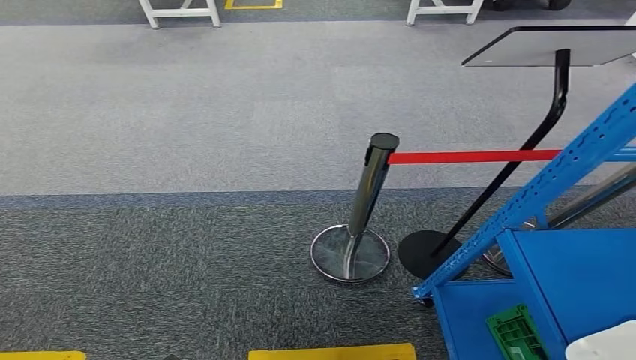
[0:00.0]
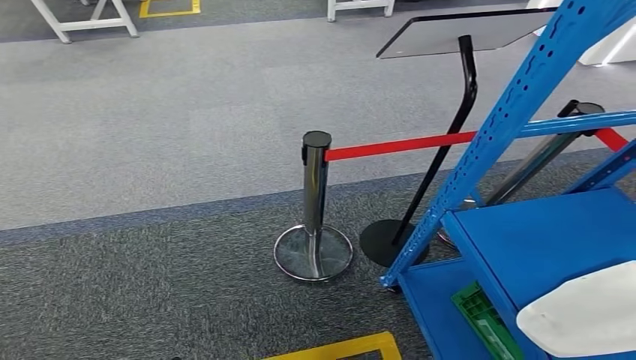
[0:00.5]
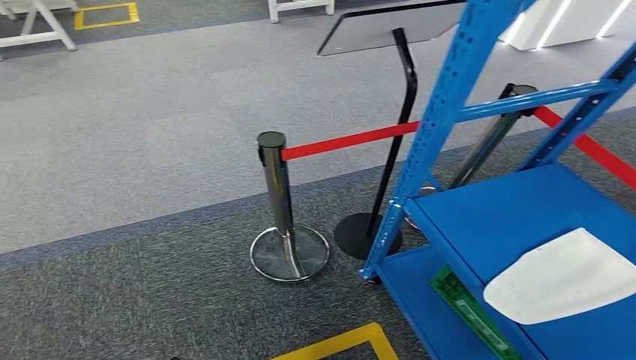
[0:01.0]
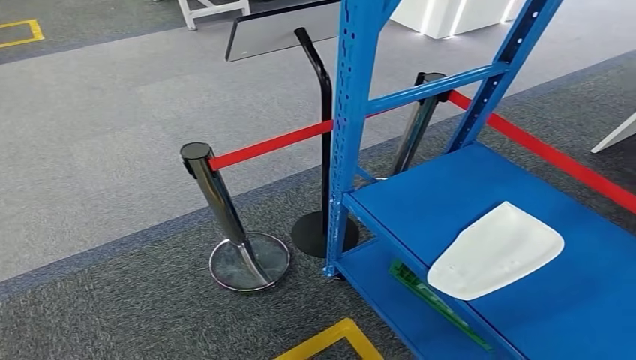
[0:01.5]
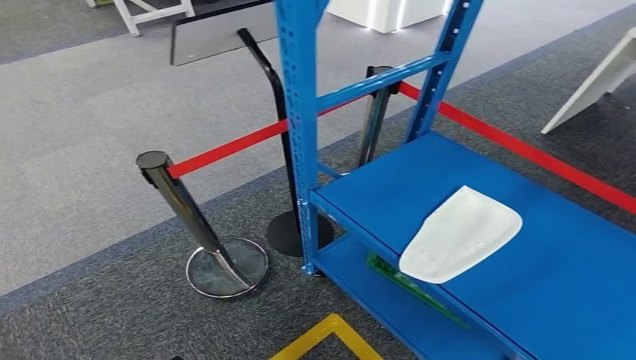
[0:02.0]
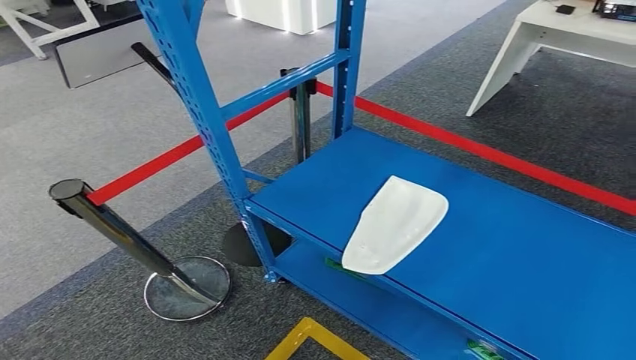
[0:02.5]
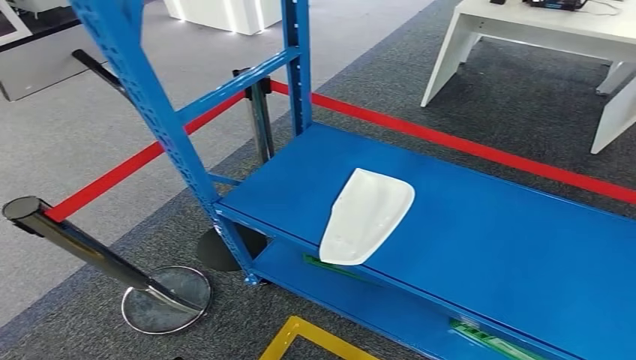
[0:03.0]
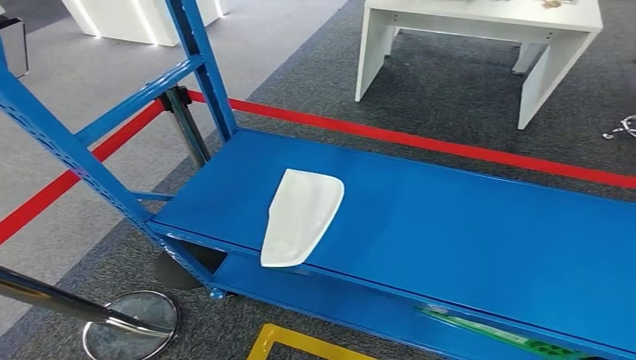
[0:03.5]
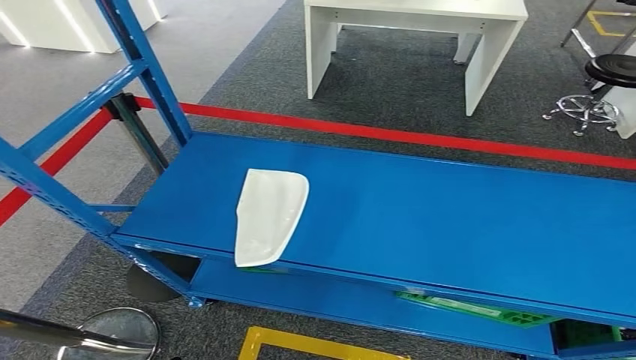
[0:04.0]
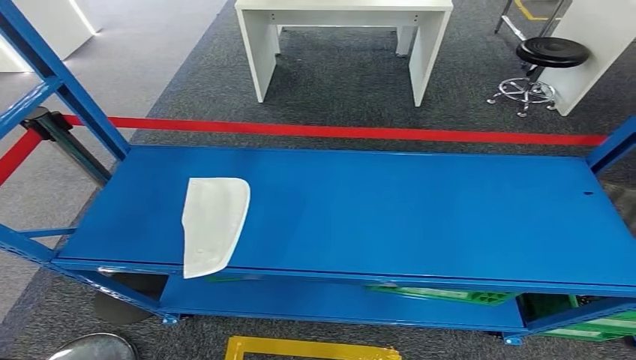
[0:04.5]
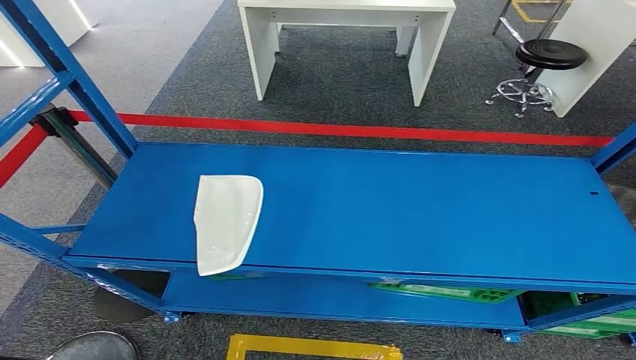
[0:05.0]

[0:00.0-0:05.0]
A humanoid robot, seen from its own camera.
Step, 0:00.0 to 0:05.0: Move to the initial position at the workbench.

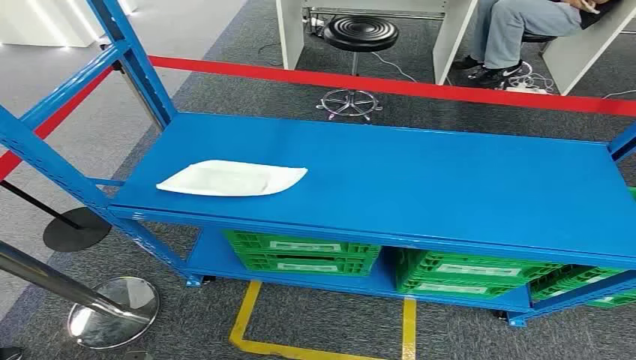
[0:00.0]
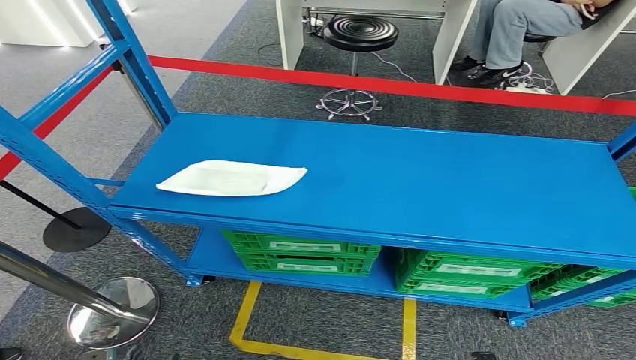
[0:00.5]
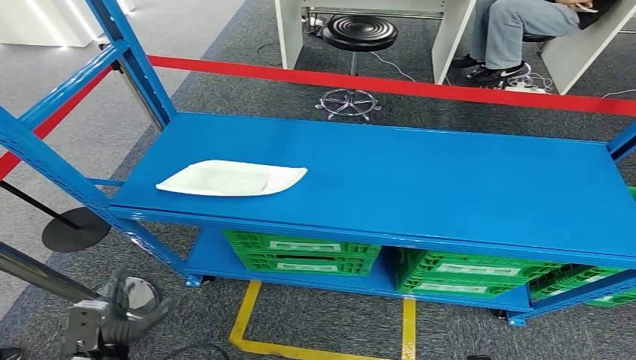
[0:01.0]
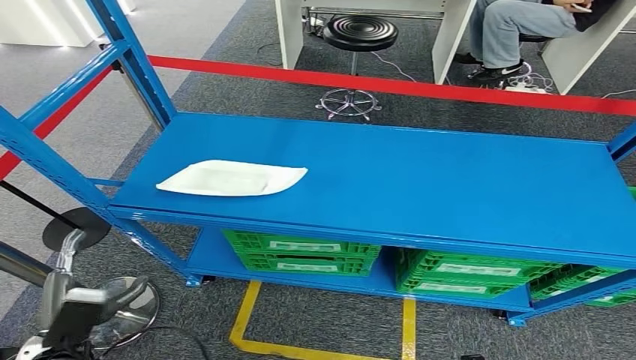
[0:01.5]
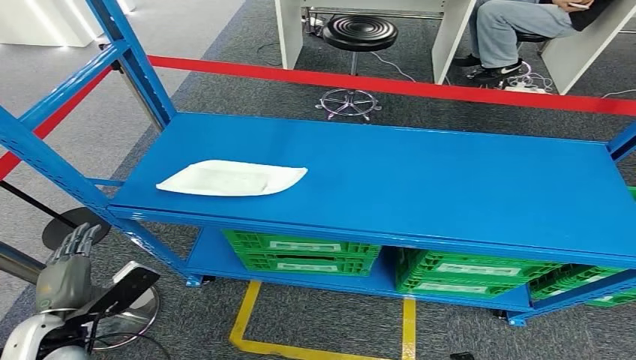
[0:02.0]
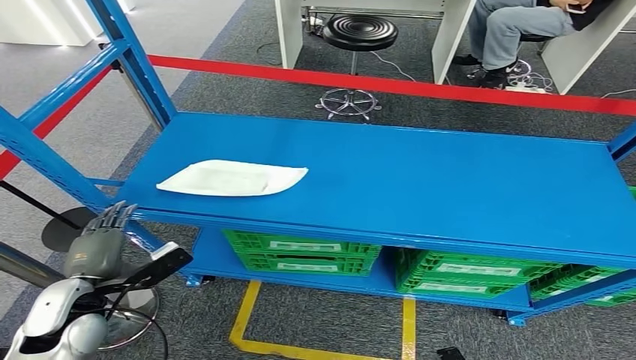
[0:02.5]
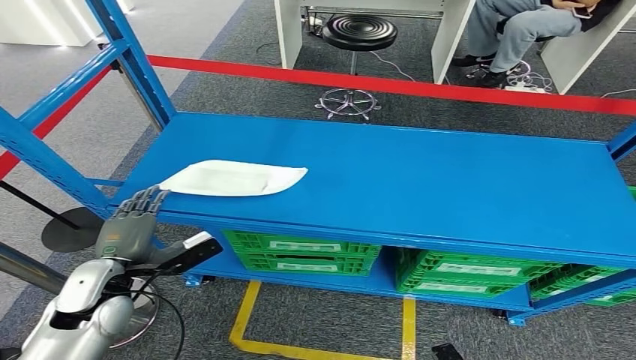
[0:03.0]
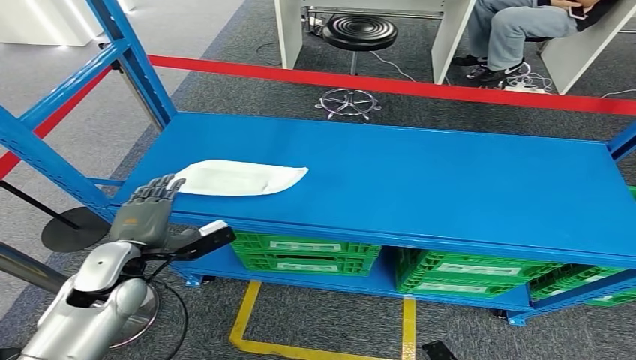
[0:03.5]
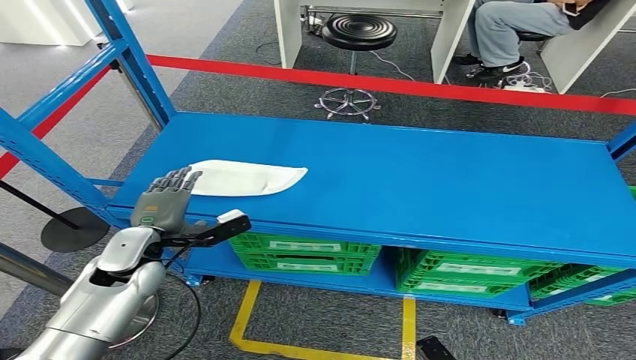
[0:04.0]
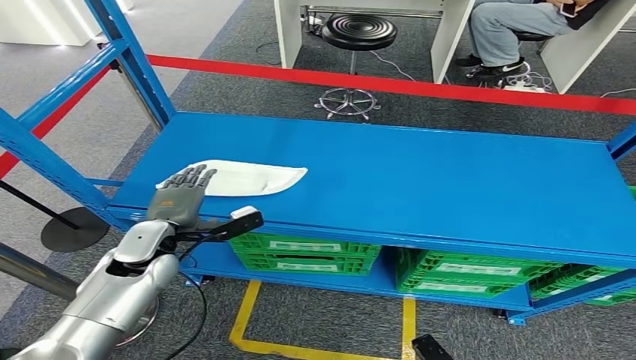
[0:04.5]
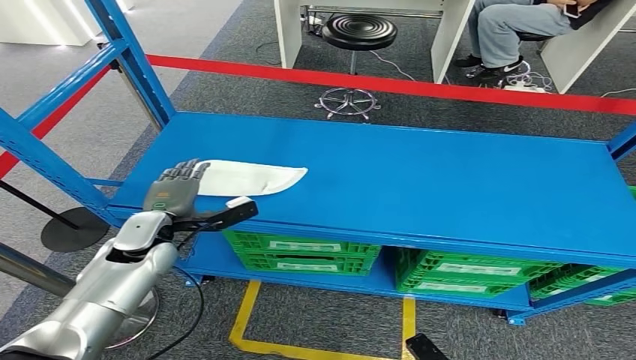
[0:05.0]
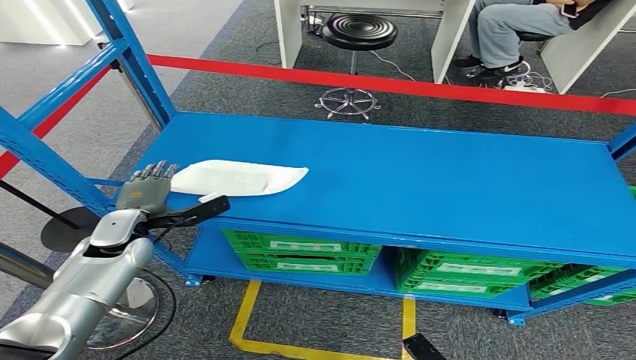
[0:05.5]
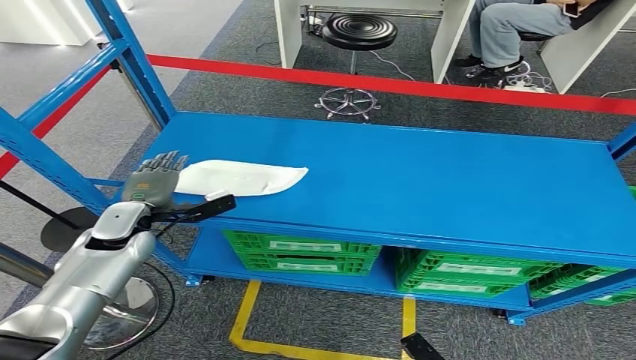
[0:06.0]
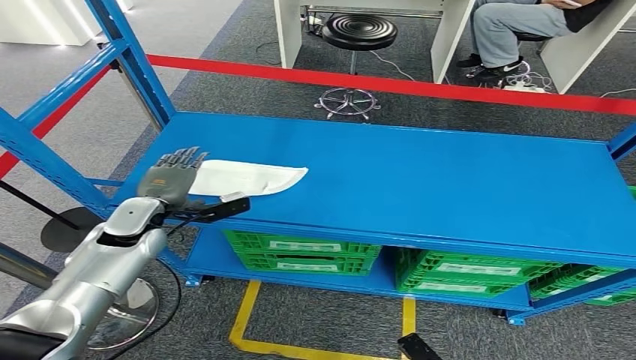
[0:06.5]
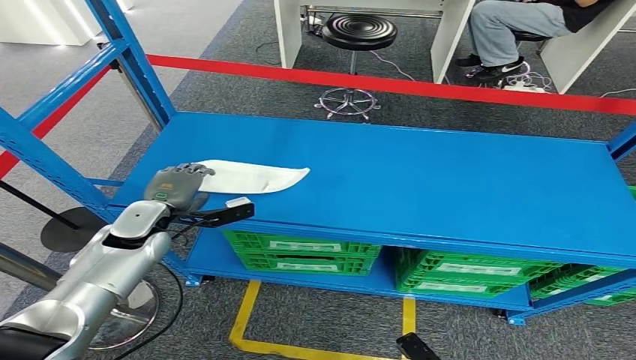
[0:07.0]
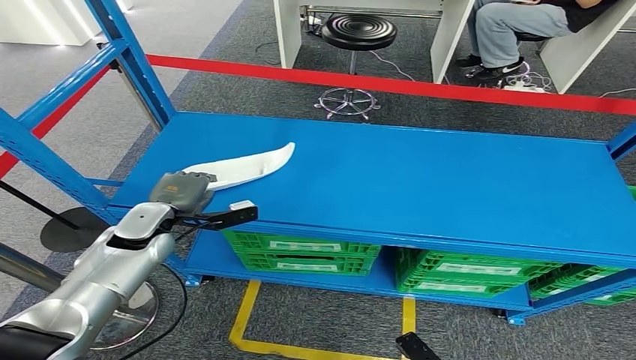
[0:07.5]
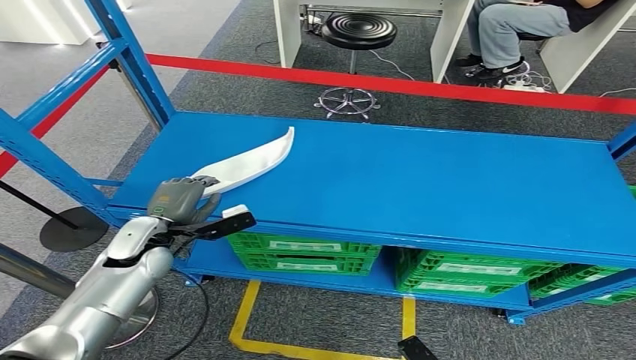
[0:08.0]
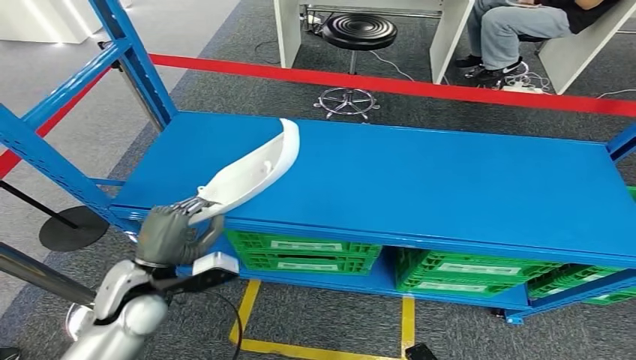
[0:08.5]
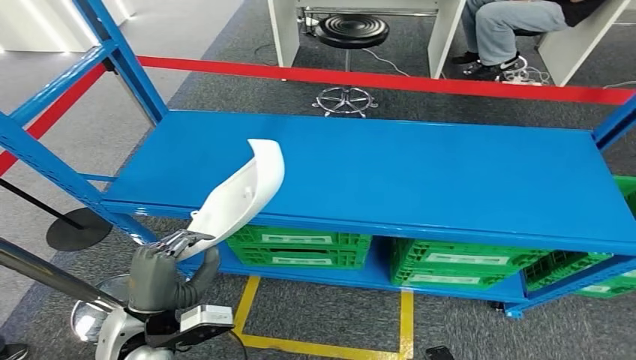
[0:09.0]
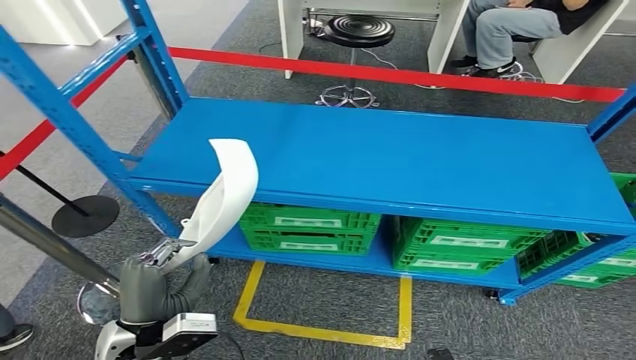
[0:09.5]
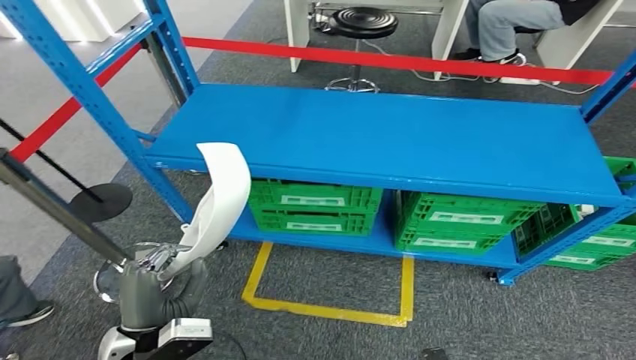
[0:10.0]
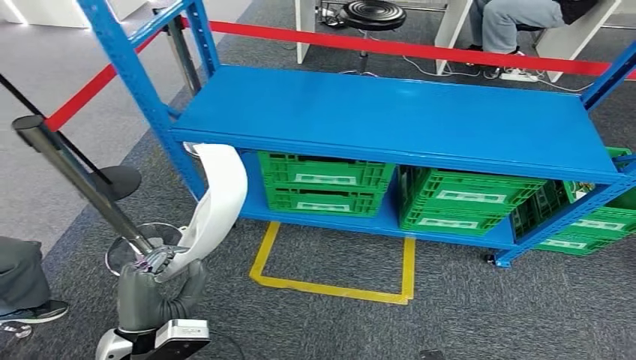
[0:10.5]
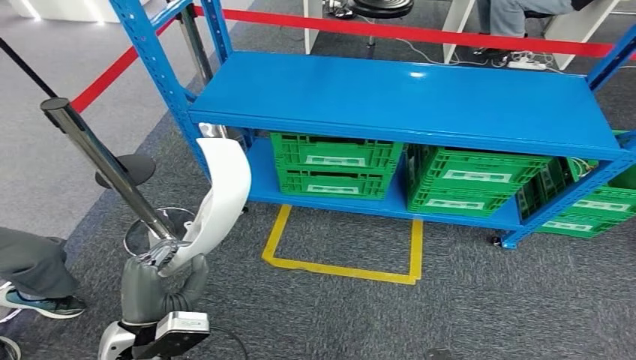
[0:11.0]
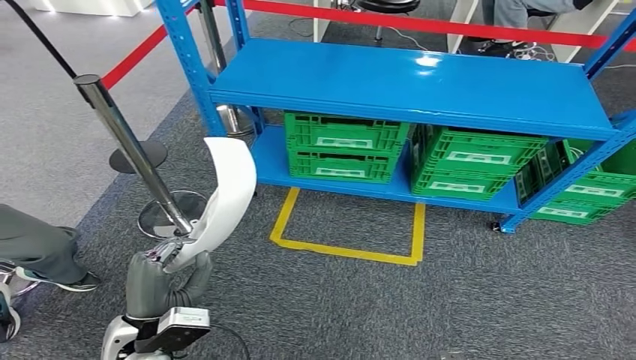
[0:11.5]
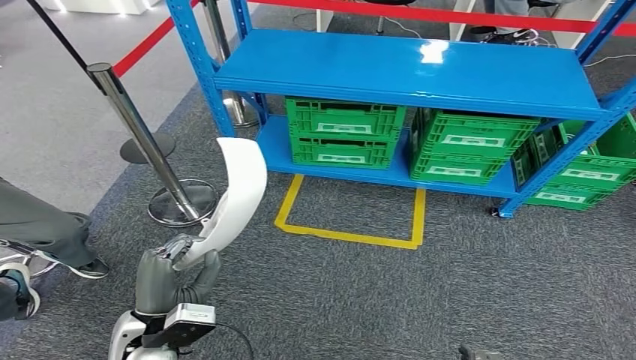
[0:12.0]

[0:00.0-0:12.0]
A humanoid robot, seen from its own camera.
Step, 0:00.0 to 0:09.5: Pick up the small component from the shelf.
0:02.0 to 0:04.0: The left hand moves forward and to the right, about 15 cm.
0:04.0 to 0:06.0: The left hand heads forward, covering some 5 cm.
0:06.0 to 0:08.0: The hands make only small movements.

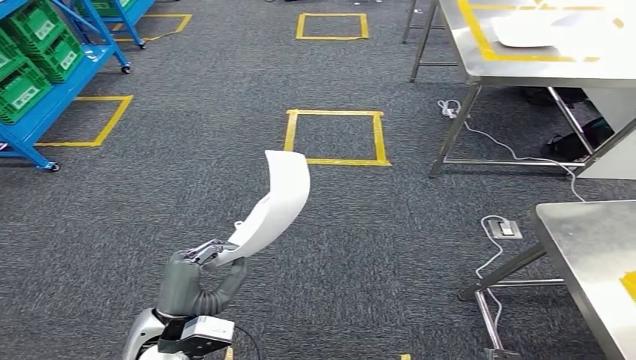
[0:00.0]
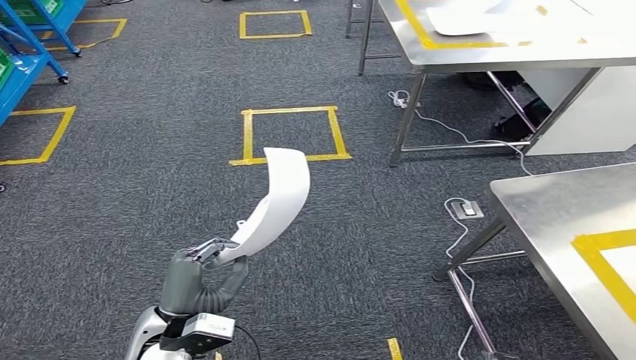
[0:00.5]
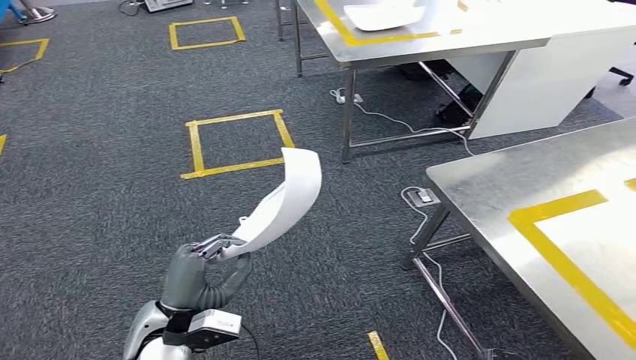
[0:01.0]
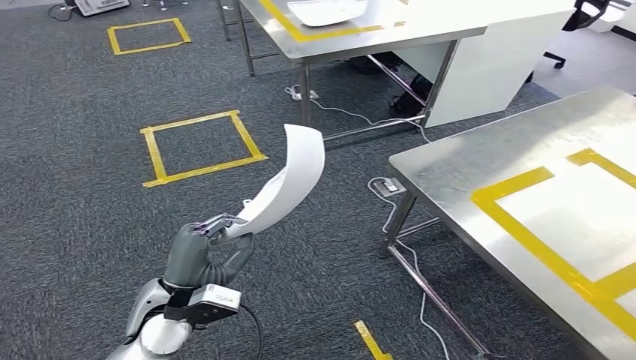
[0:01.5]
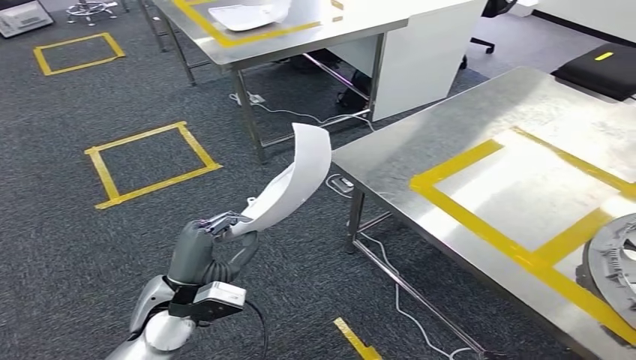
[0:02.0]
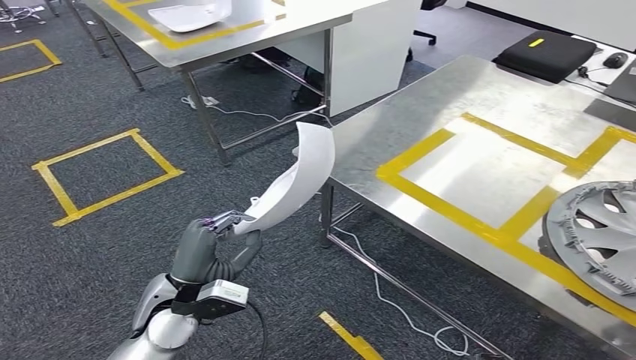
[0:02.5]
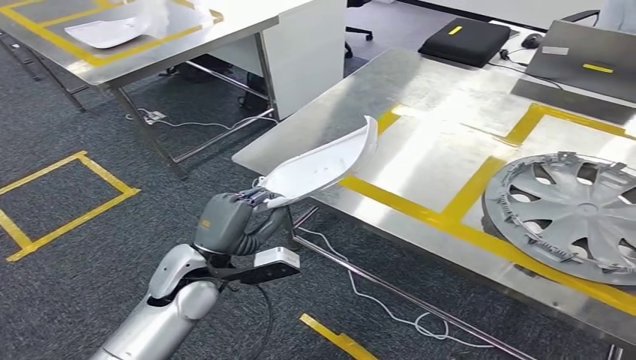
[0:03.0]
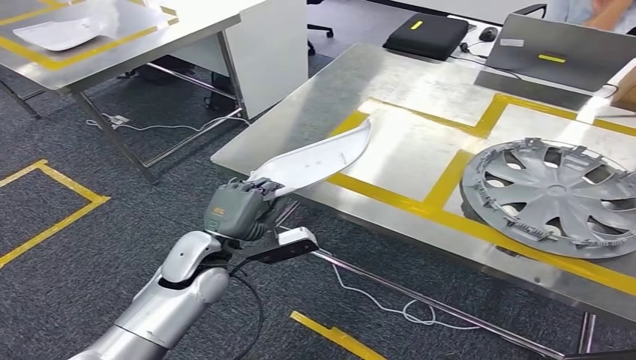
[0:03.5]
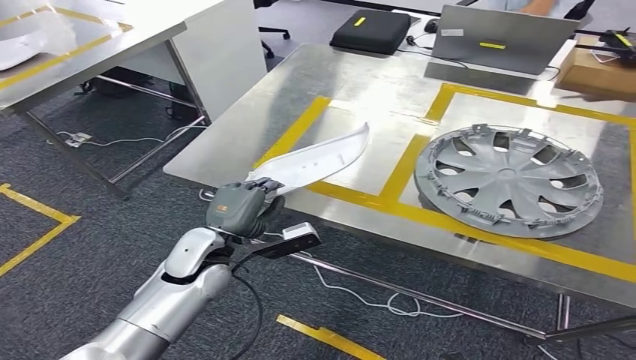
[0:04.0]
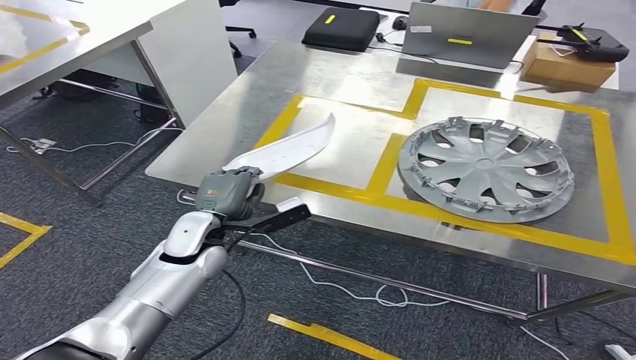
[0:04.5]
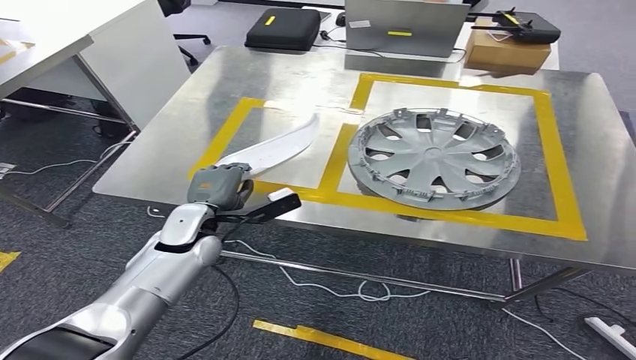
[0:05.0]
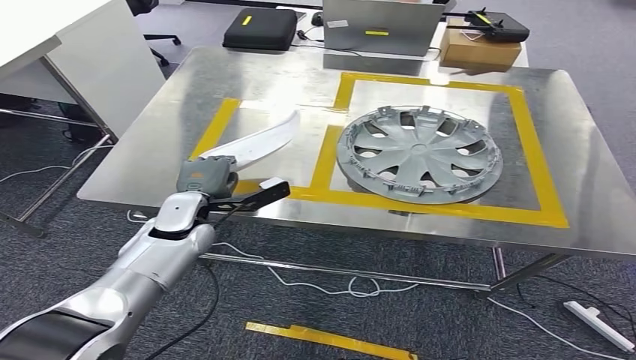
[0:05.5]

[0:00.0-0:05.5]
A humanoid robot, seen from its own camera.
Step, 0:00.0 to 0:03.5: Move the small component to the workbench.
